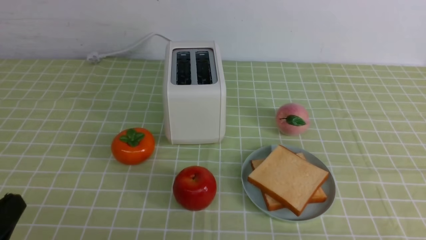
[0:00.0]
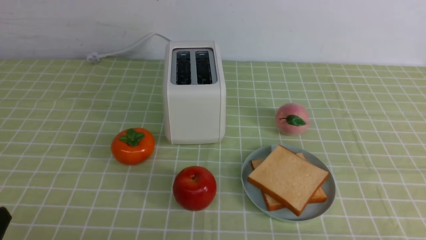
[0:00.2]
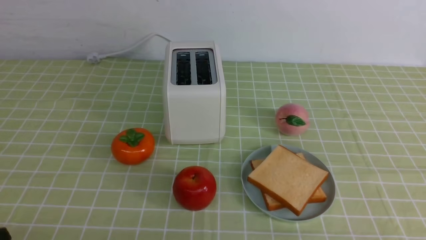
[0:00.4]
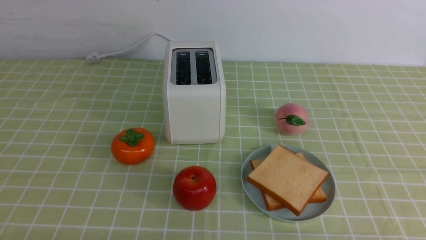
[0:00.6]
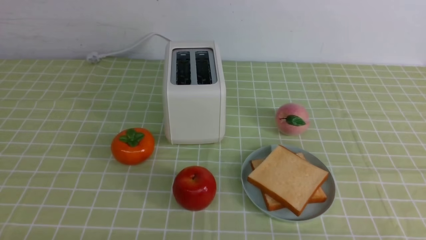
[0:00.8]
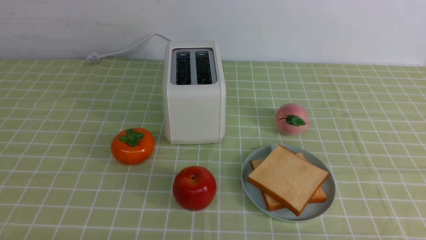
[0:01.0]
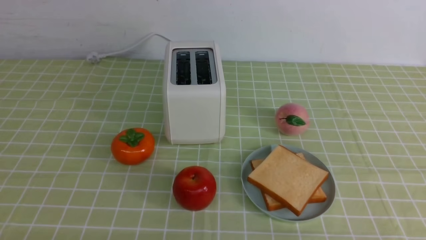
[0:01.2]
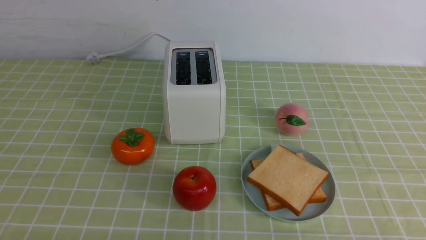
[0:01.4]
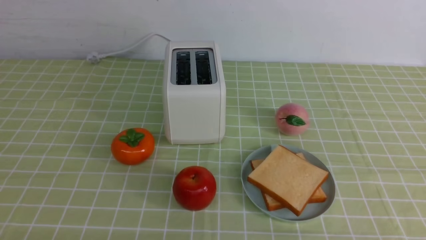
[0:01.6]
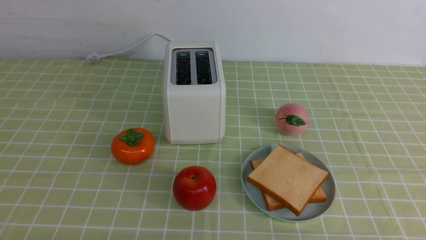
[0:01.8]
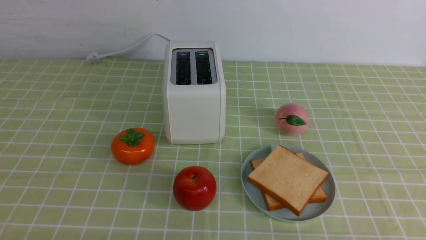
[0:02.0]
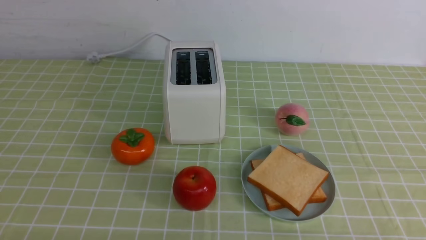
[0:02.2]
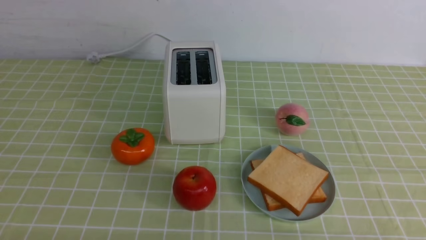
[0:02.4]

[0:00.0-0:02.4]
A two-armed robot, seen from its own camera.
Task of the whole recording: take toasted bread from bread machine on green coffee tablecloth place on plate.
0:00.0 to 0:01.2: The left gripper heads downward, covering about 5 cm.
0:01.2 to 0:02.4: Both grippers stay about where they are.
